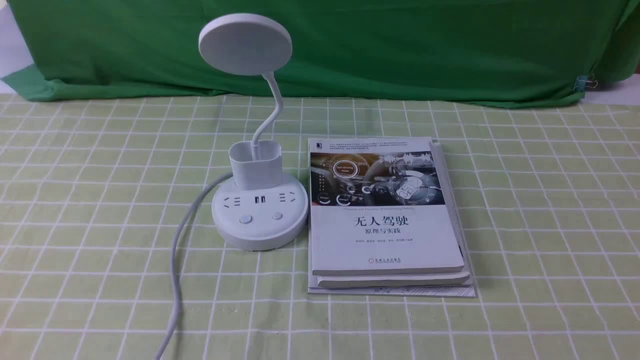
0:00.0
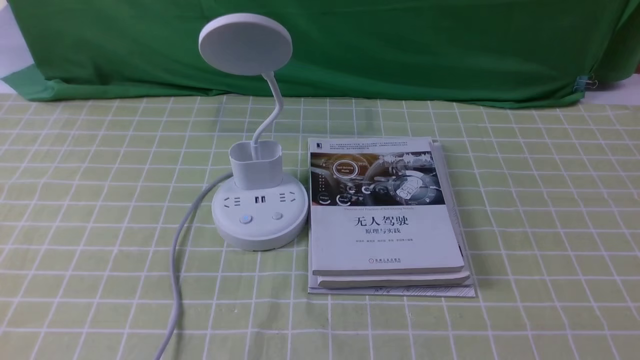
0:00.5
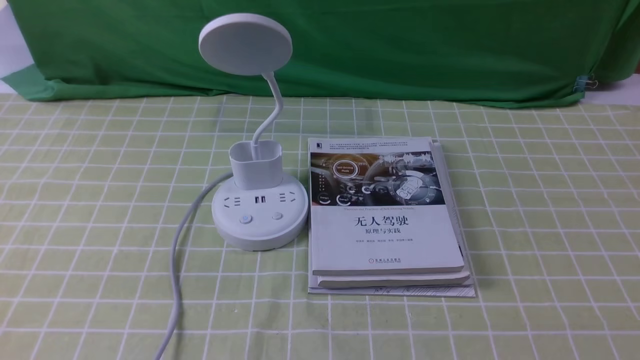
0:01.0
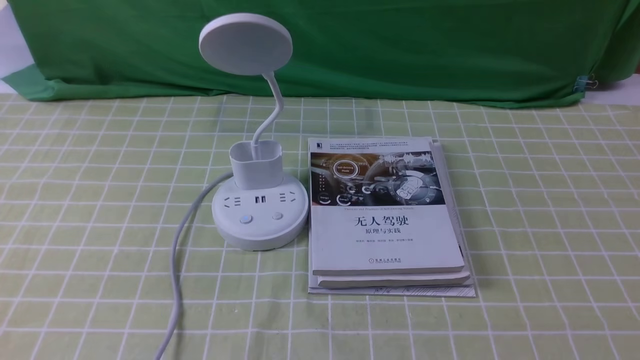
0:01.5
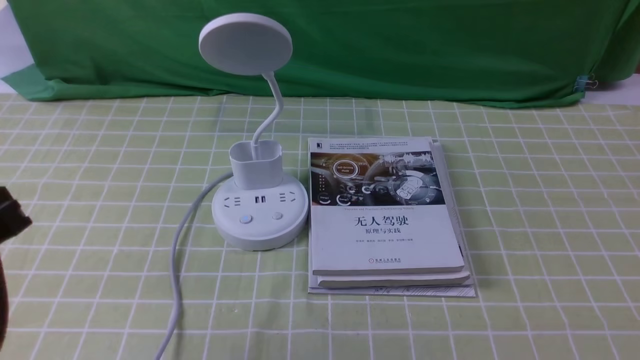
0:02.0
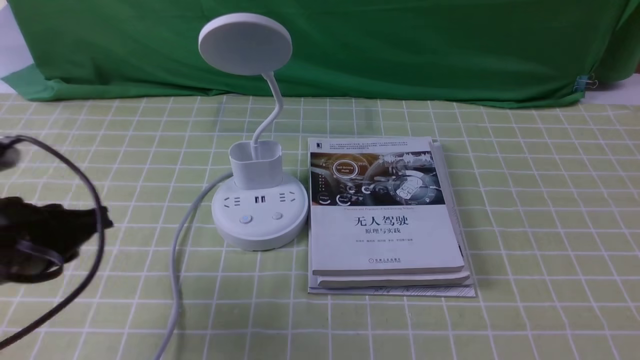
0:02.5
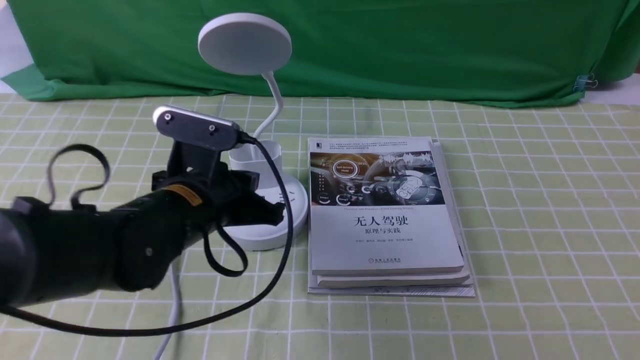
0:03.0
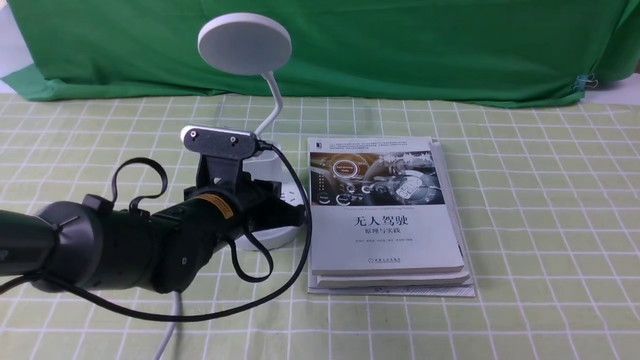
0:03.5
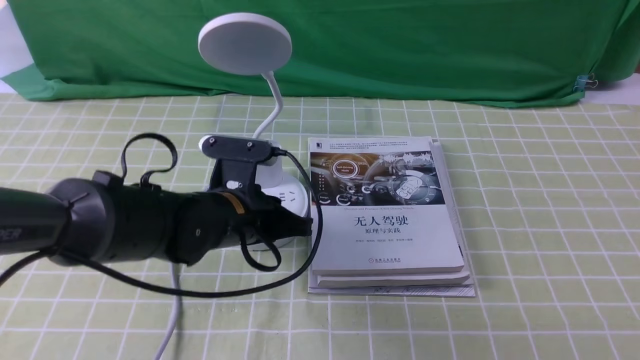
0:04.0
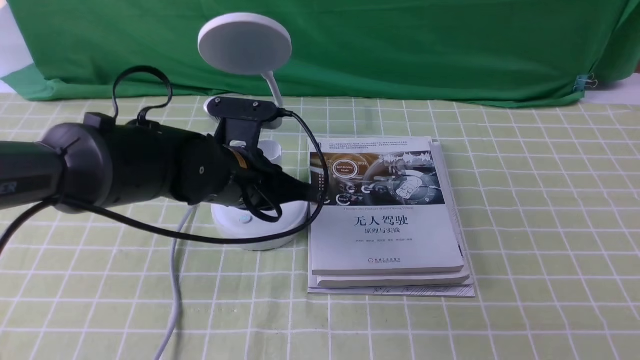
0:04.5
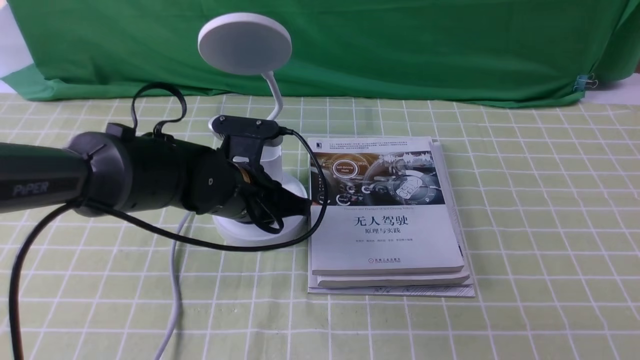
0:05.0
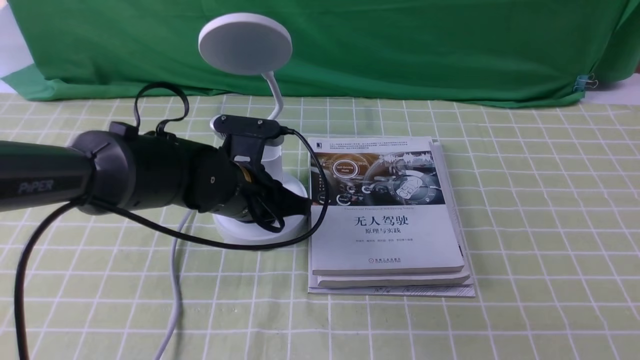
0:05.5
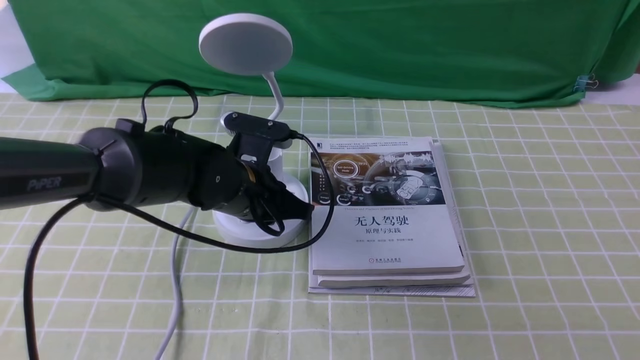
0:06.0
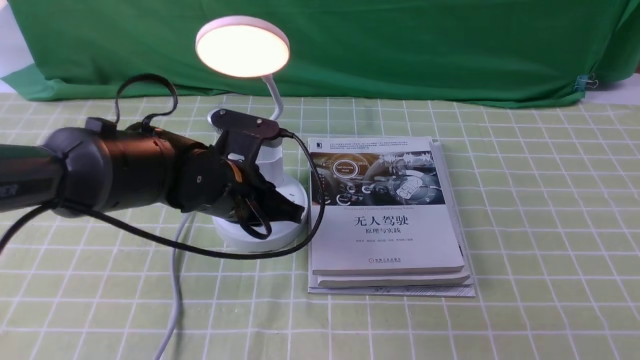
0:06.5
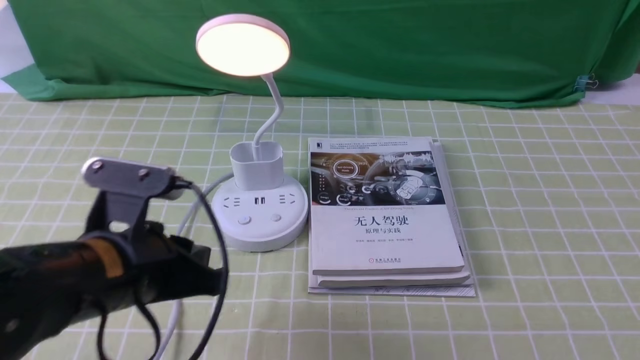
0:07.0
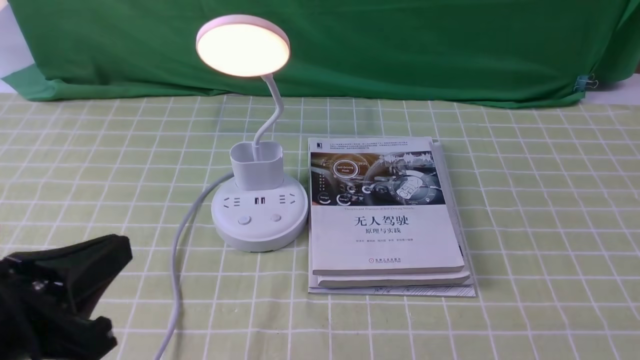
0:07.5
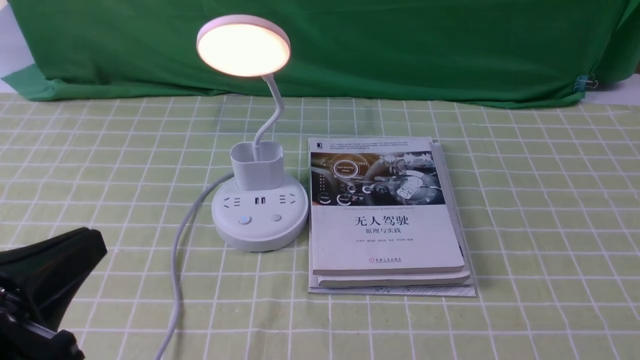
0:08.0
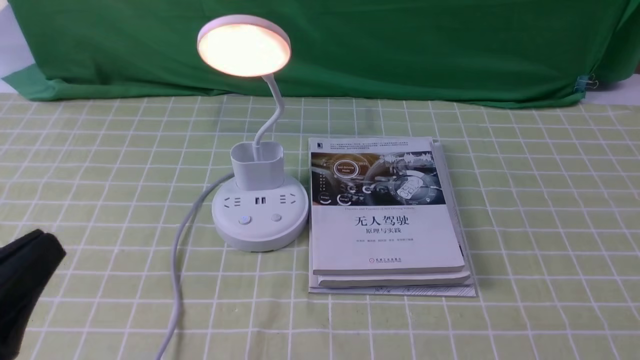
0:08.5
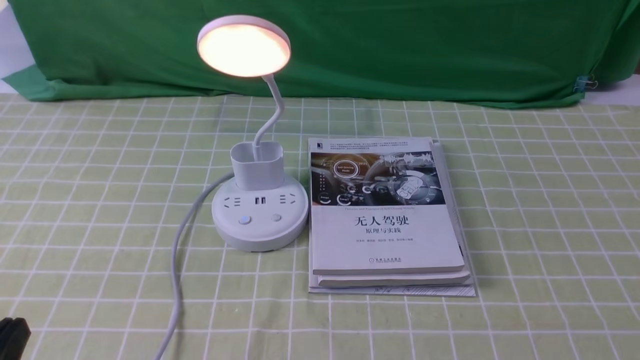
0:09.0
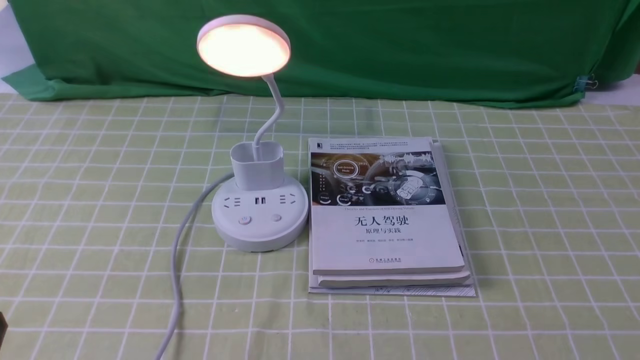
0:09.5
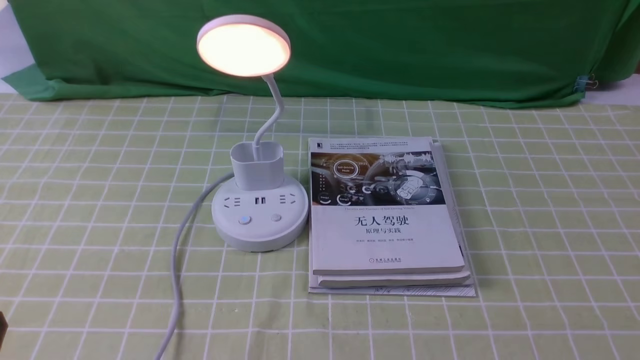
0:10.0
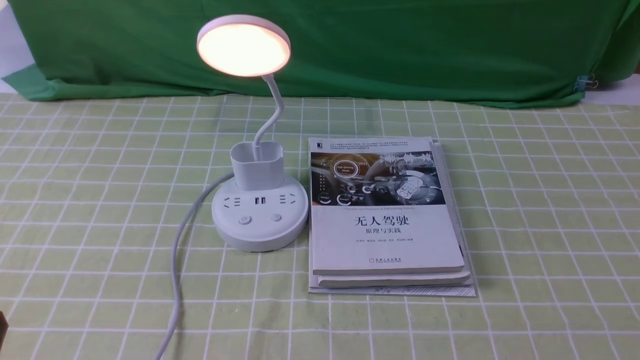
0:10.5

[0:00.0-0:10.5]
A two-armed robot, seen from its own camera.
Step, 0:00.0 to 0:06.0: use the left arm to press the button switch on the lamp holder.
0:02.0 to 0:04.0: The left gripper heads forward, to the right and downward, covering roughly 30 cm.
0:04.0 to 0:06.5: The grippers make only small movements.
0:06.5 to 0:08.5: The left gripper moves backward and to the left, roughly 30 cm.
0:08.5 to 0:10.5: The left gripper moves downward, roughly 10 cm, and opens up.

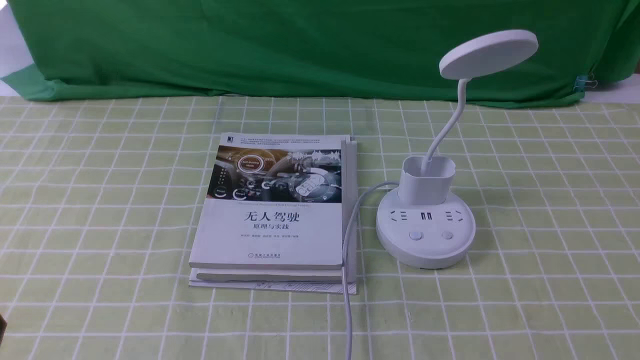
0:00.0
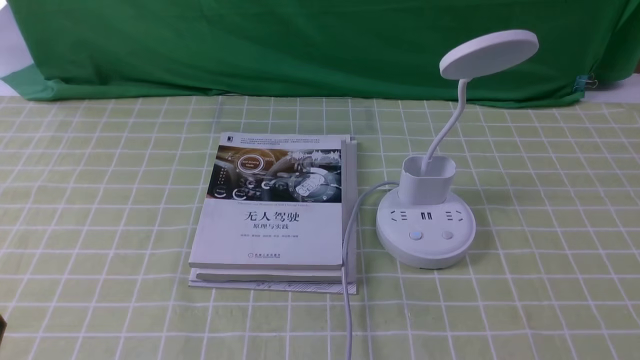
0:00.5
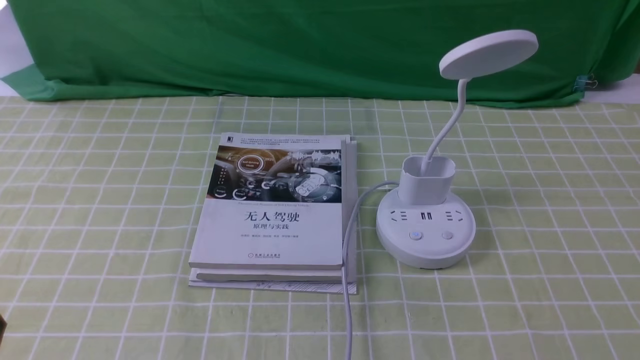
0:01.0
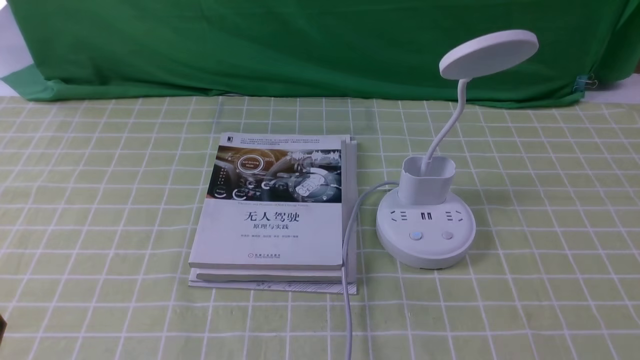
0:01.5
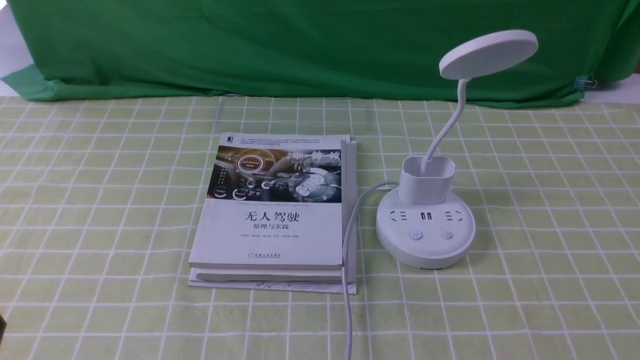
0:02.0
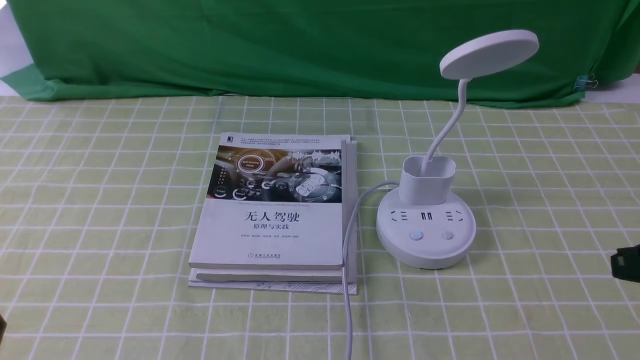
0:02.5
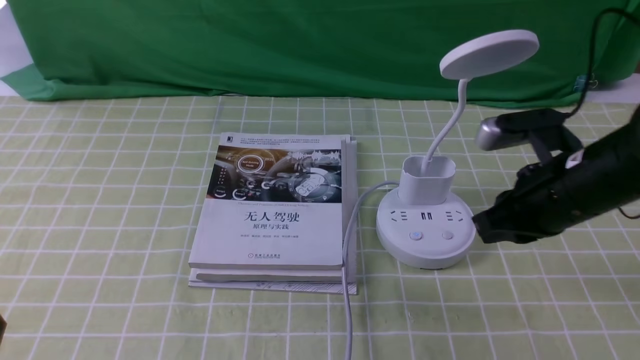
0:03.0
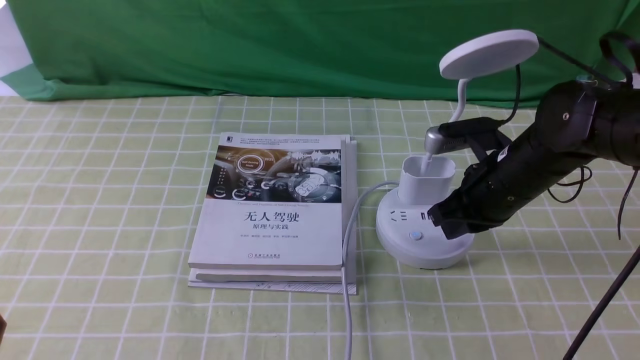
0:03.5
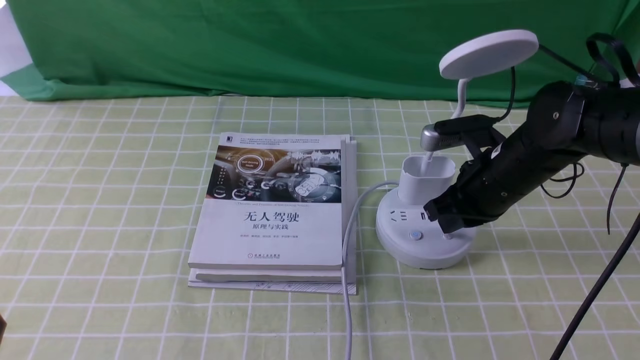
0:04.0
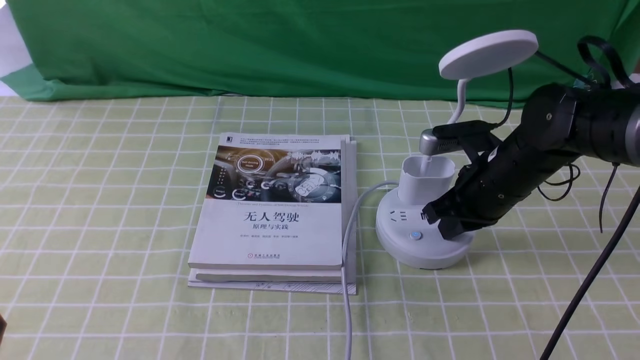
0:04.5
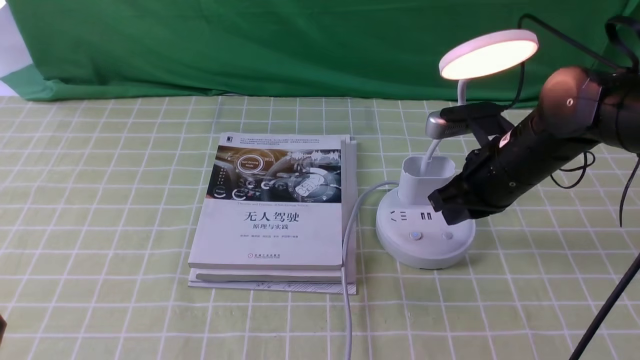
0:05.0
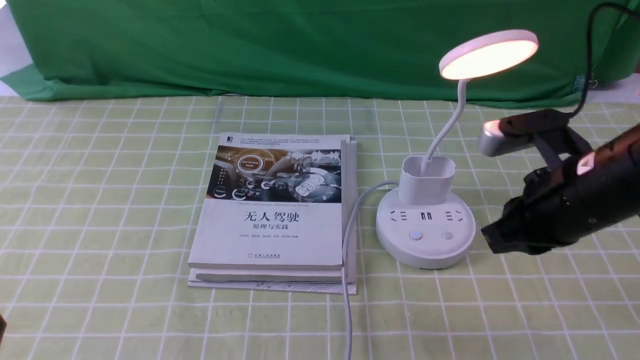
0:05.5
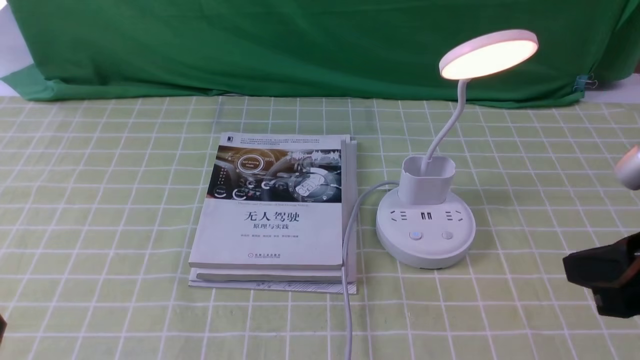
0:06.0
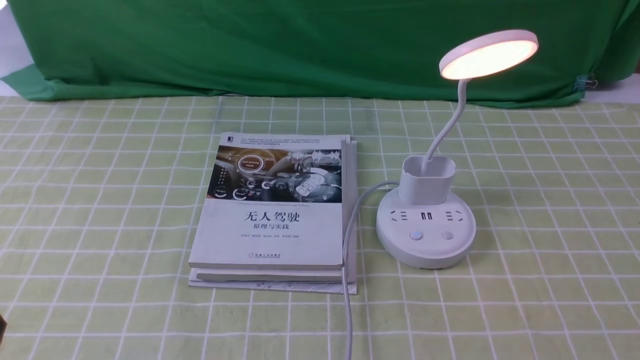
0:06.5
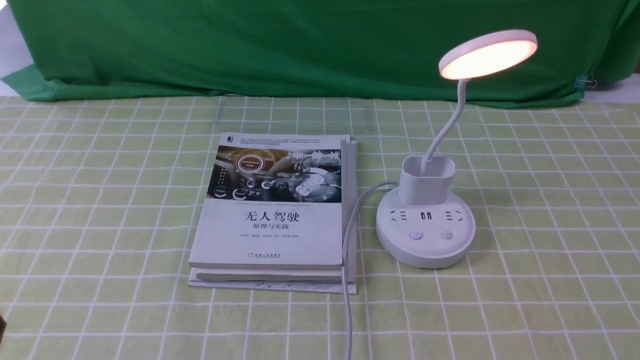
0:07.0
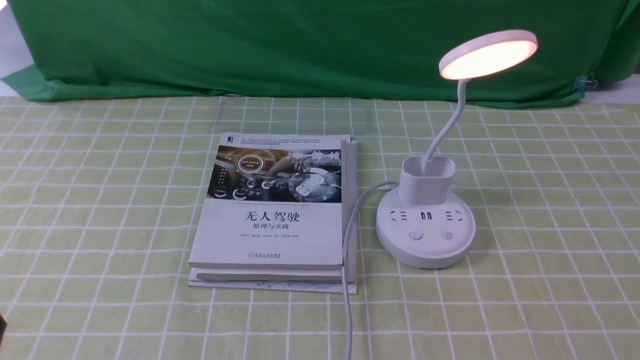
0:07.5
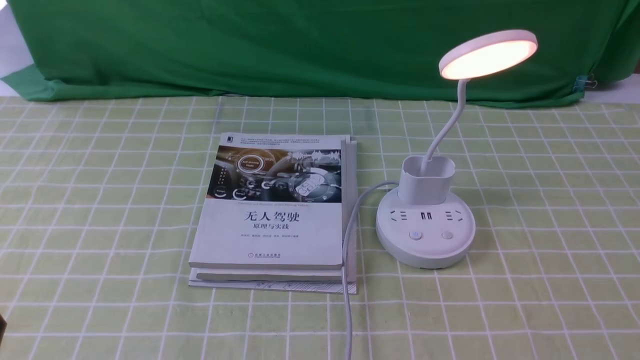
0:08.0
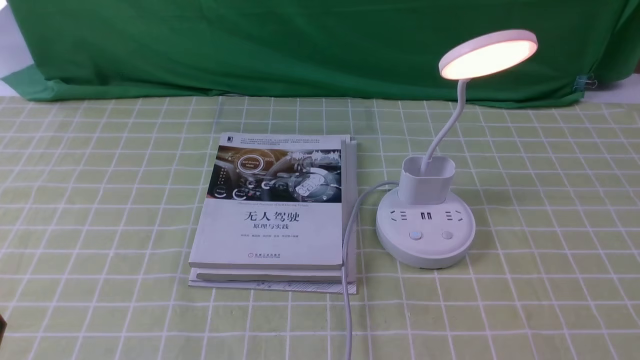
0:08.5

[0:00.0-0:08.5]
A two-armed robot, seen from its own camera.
Step, 0:00.0 to 0:05.0: use the right arm to press the button switch on the lamp holder.
0:02.0 to 0:04.0: The right gripper travels forward and to the left by about 30 cm.
0:04.0 to 0:06.5: The right gripper moves backward, to the right and upward, some 30 cm.
